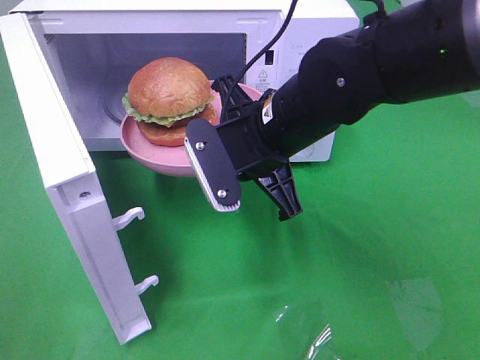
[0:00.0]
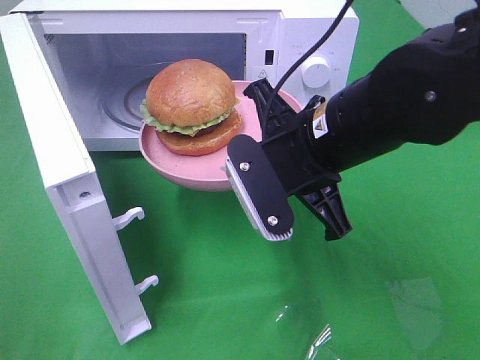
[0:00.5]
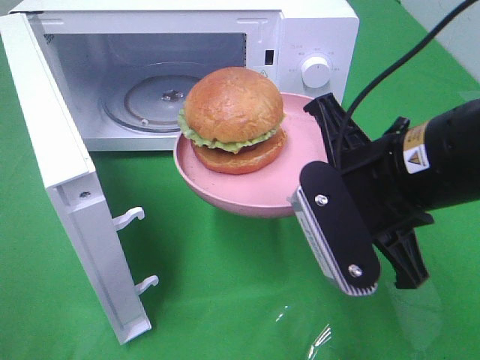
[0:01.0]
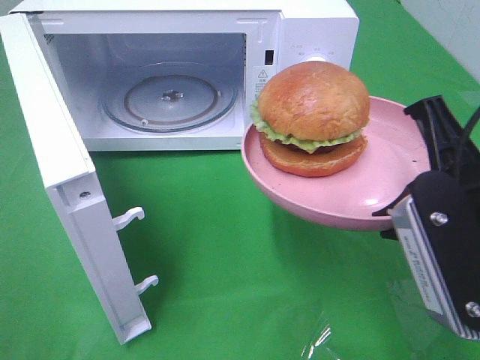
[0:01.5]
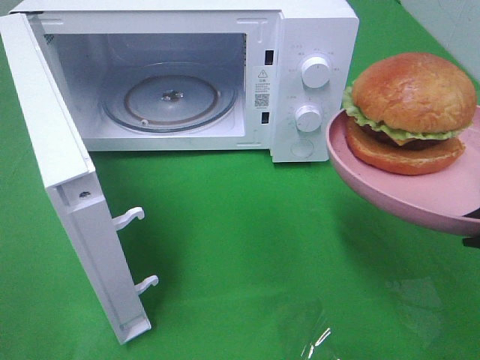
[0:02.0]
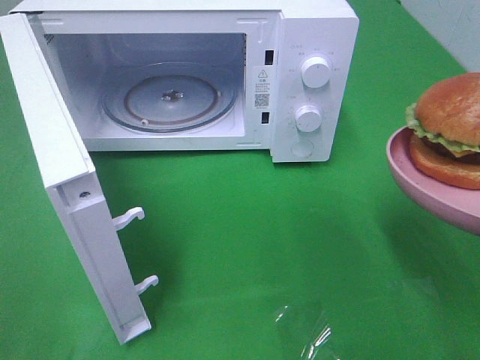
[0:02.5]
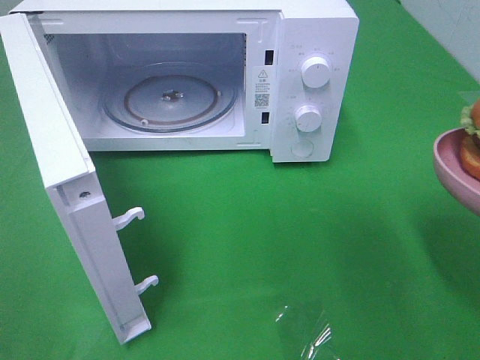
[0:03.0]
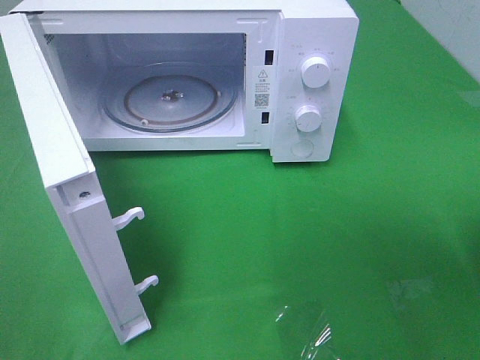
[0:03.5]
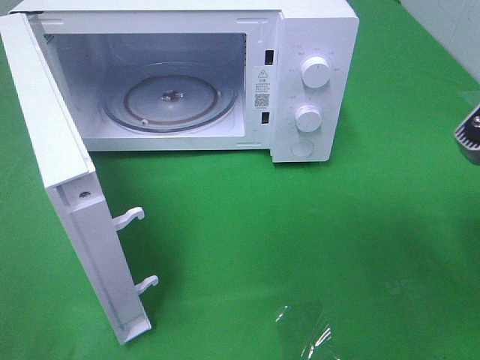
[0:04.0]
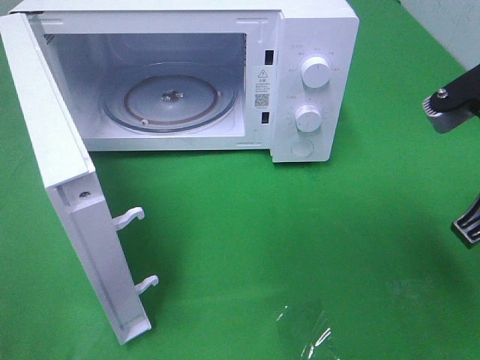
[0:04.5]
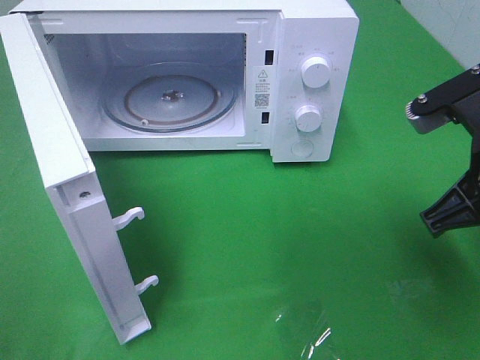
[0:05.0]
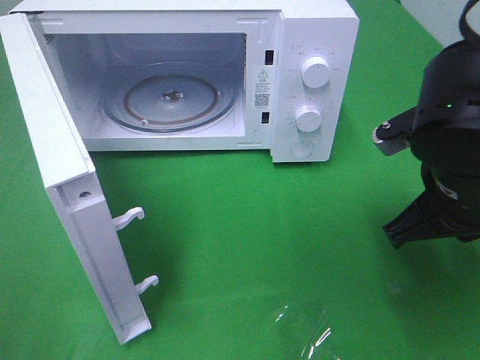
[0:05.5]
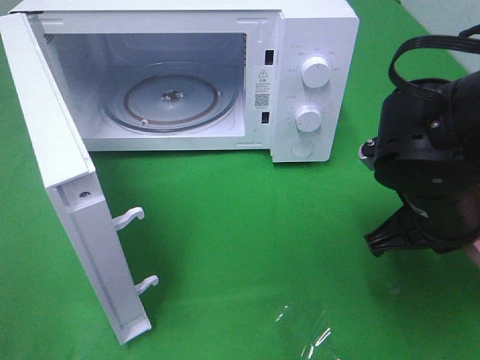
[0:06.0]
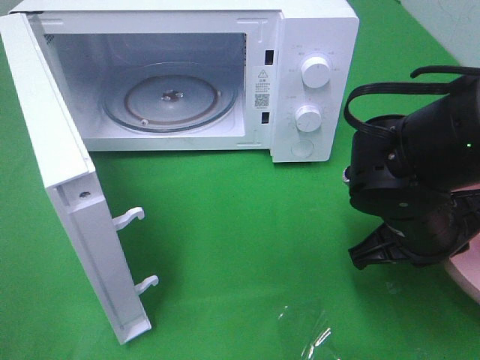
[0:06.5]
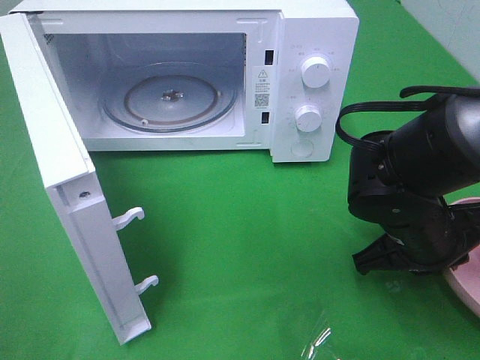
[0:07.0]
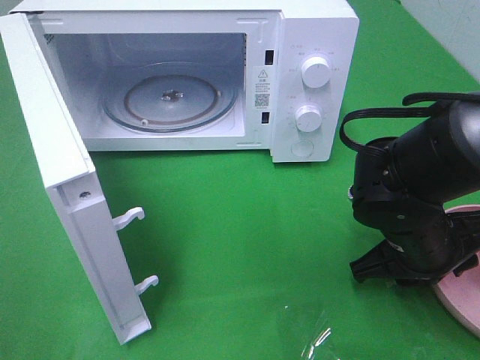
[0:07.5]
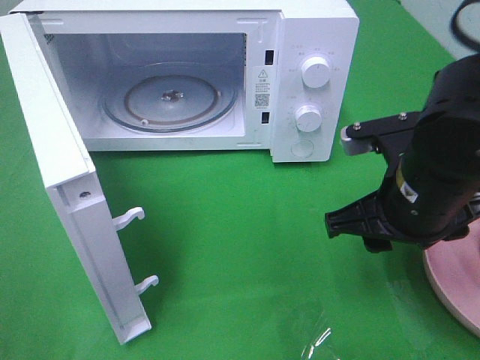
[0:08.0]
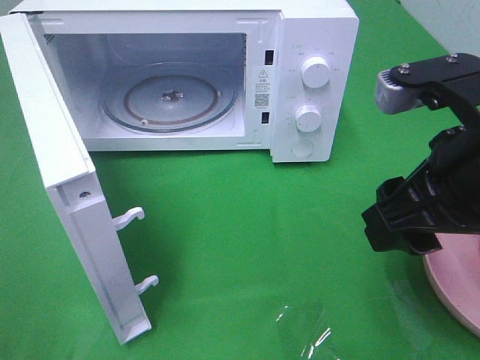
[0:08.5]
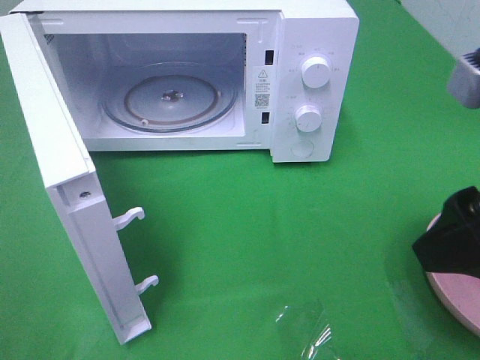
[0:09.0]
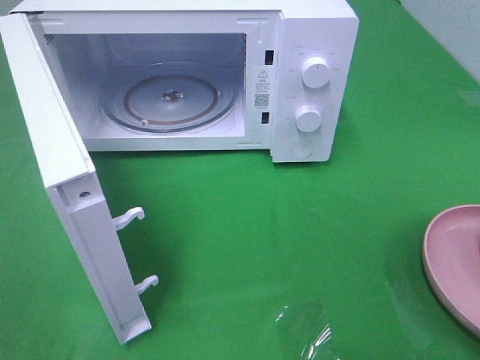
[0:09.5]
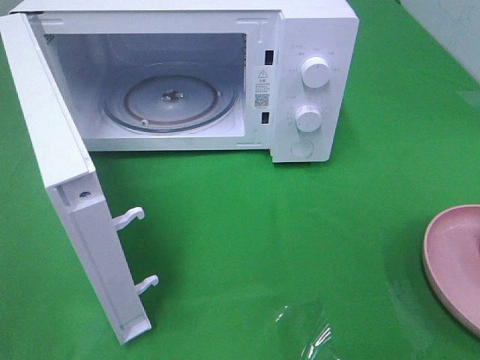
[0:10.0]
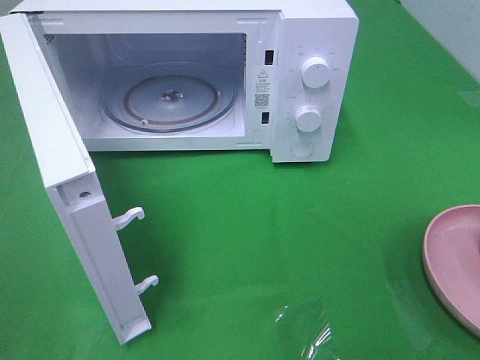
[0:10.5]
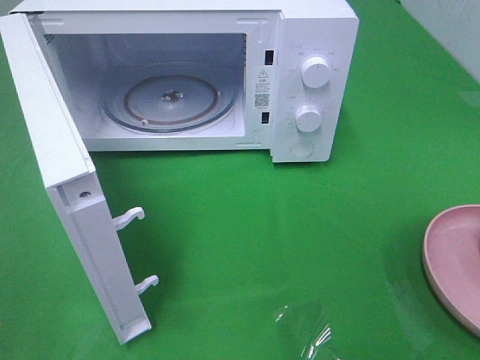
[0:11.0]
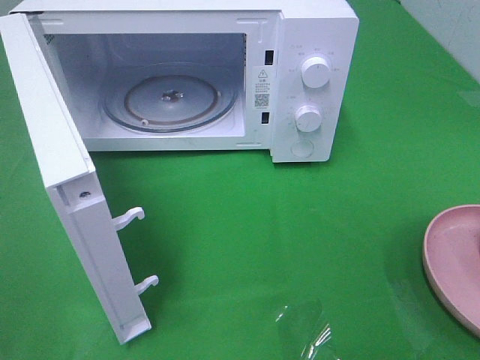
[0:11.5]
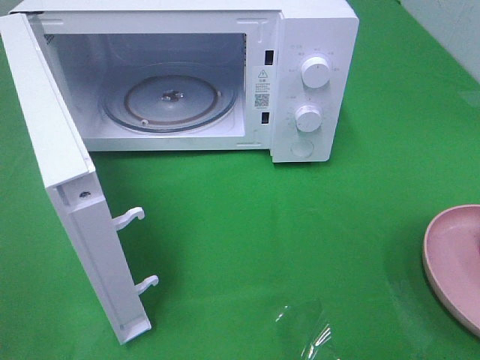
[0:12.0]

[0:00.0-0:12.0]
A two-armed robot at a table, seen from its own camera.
Task of the whole recording: Heat the burger.
Step, 0:00.0 to 0:08.0: Right hand: place the plate on the table.
0:00.0 to 0:02.0: The right gripper travels to the right, backward and upward by some 25 cm.
0:04.0 to 0:06.0: The right gripper is displaced downward, forward and to the left by some 15 cm.
0:06.0 to 0:08.0: The right gripper goes downward and returns, roughly 5 cm each way, and opens its fingers.
0:08.0 to 0:10.0: The right gripper shifts about 25 cm backward, to the right and upward.

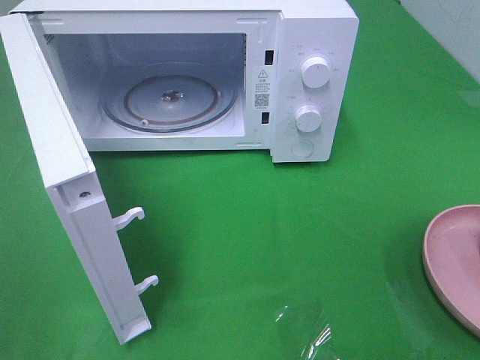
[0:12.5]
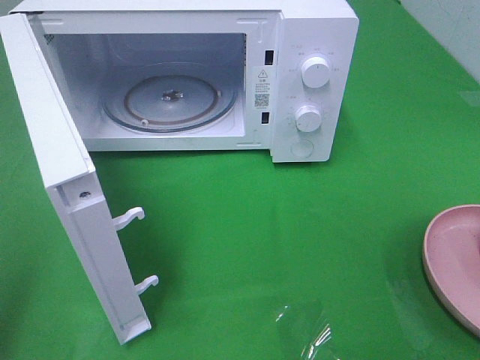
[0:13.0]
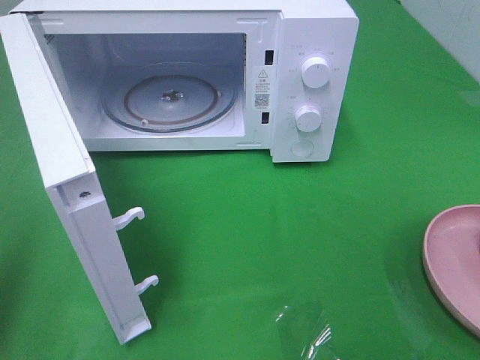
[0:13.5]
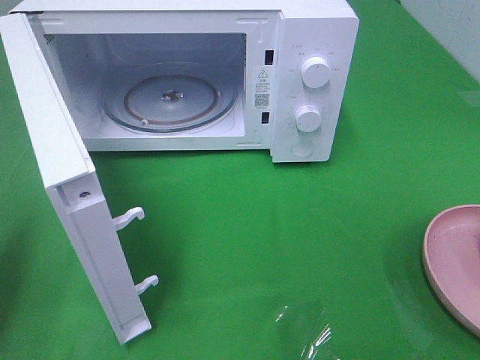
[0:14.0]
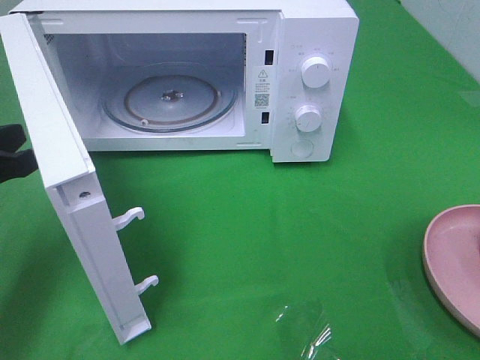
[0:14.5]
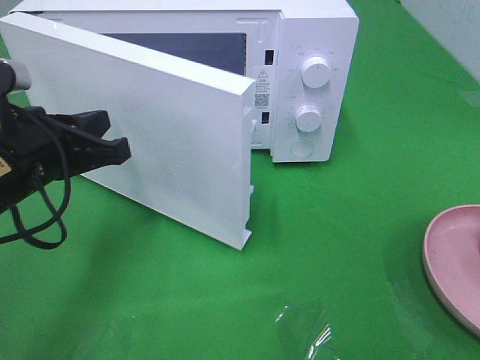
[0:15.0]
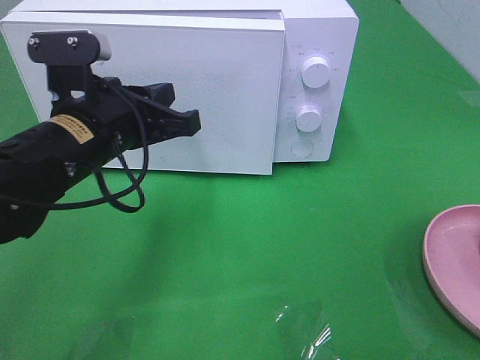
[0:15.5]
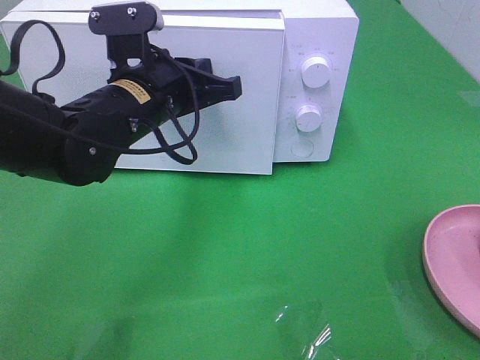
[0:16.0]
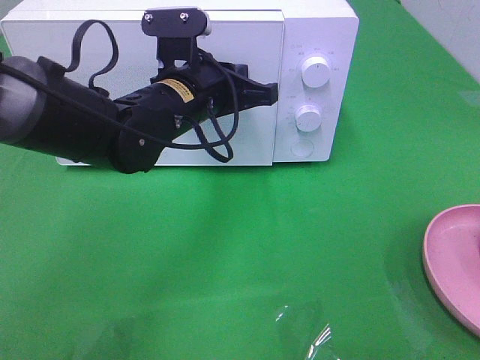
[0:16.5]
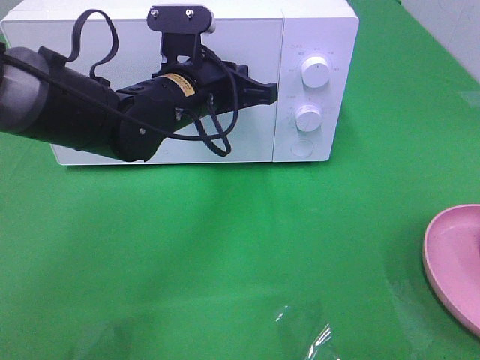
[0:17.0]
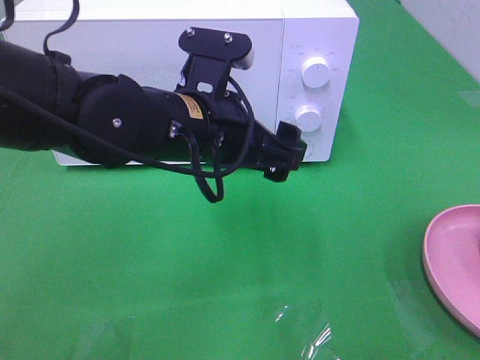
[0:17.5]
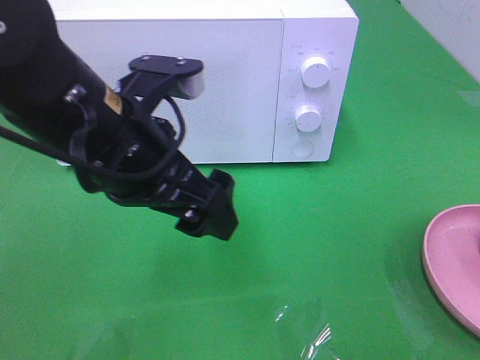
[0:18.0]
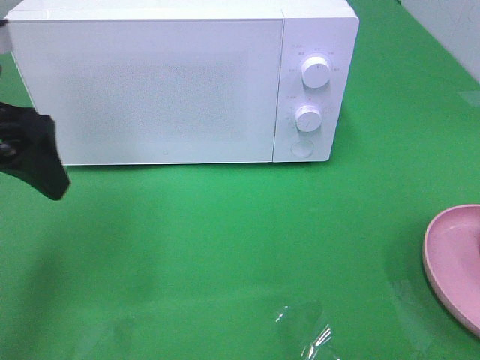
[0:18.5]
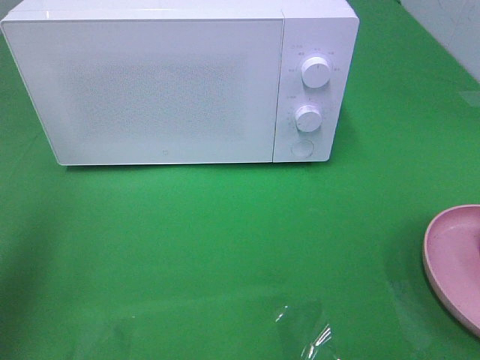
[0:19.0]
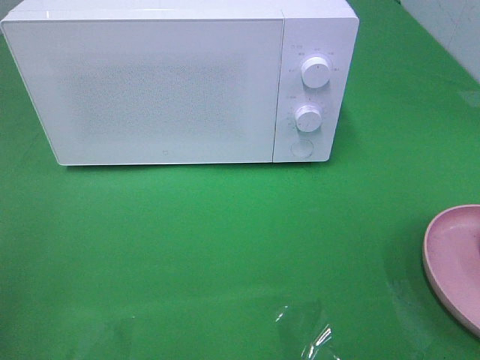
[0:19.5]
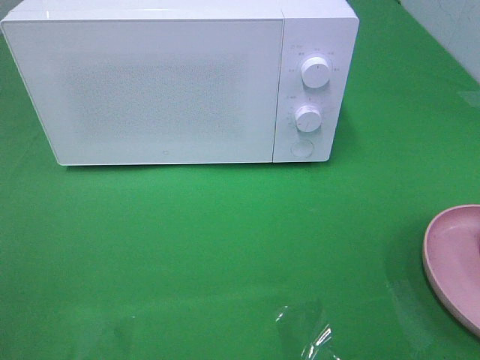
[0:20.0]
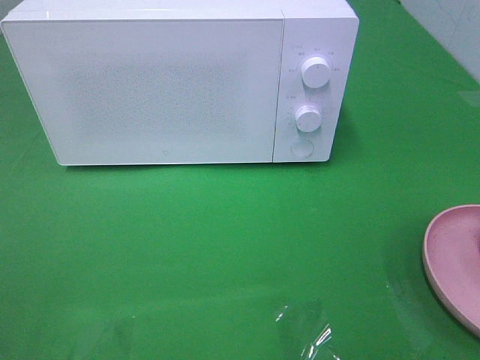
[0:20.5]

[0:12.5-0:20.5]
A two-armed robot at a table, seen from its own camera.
Task of the whole recording: Heat the burger.
0:12.5 to 0:14.5: The left gripper shifts about 25 cm forward and downward, and closes.
0:14.5 to 0:16.5: The left gripper goes approximately 25 cm to the right and forward.
0:16.5 to 0:18.5: The left gripper travels to the left, upward and backward by some 25 cm, and opens up.
0:18.5 to 0:20.5: The left gripper heads backward, covering roughly 25 cm.

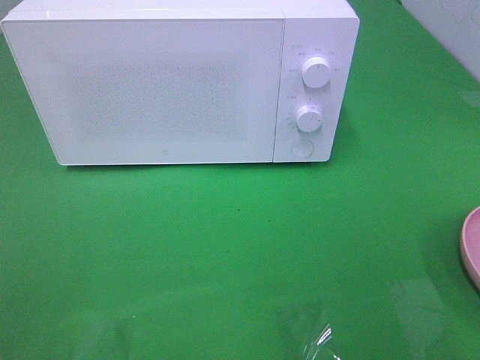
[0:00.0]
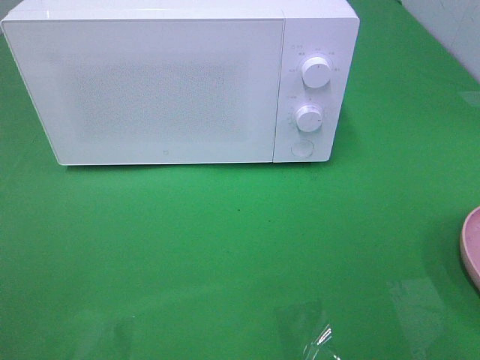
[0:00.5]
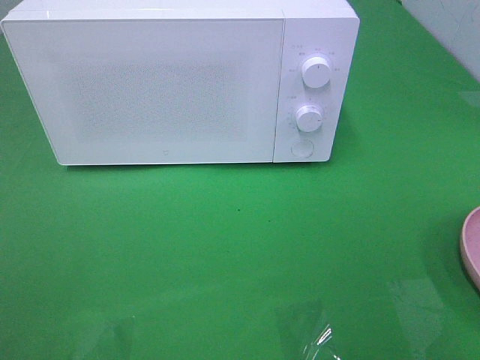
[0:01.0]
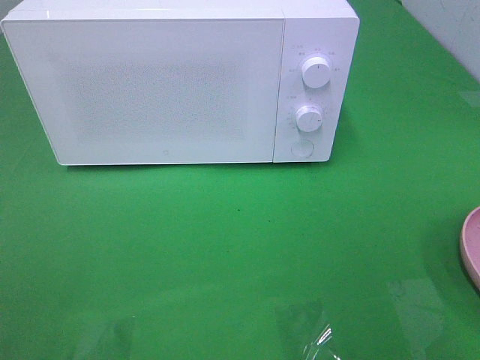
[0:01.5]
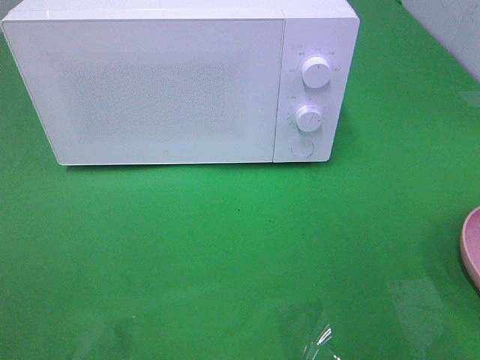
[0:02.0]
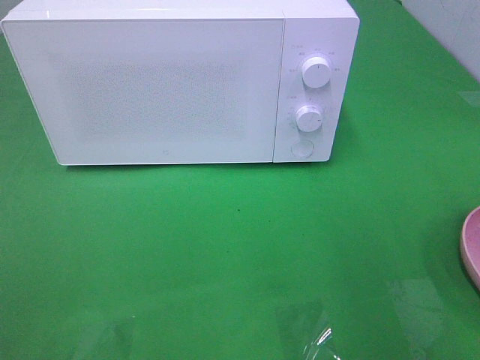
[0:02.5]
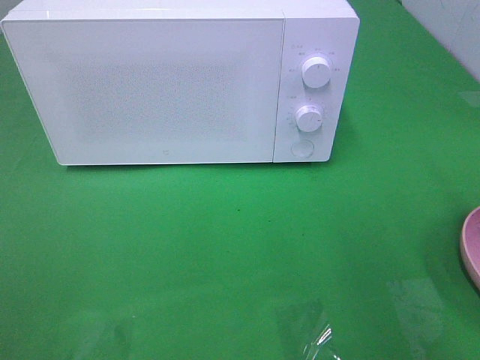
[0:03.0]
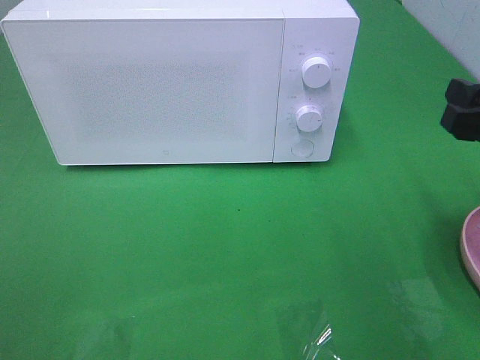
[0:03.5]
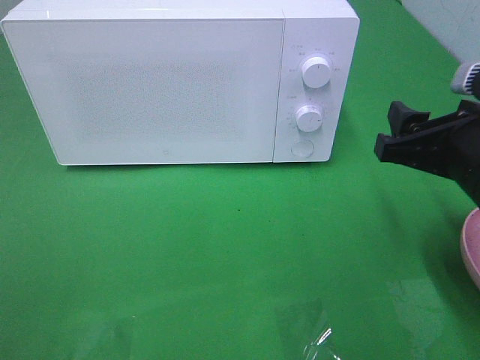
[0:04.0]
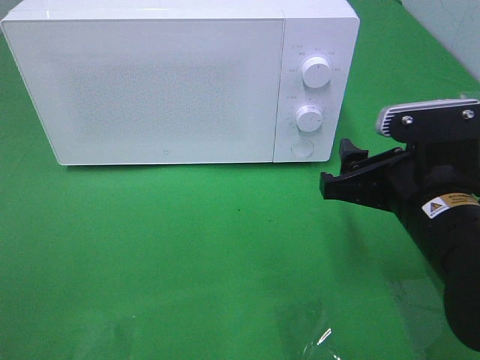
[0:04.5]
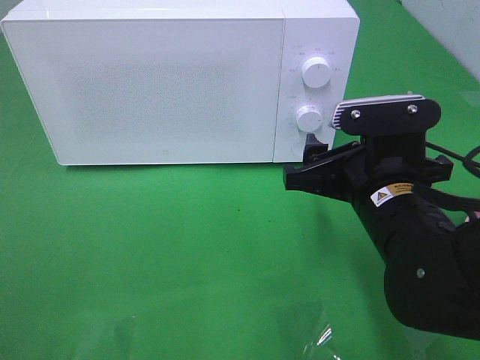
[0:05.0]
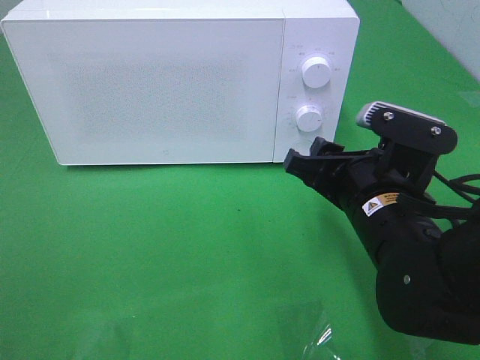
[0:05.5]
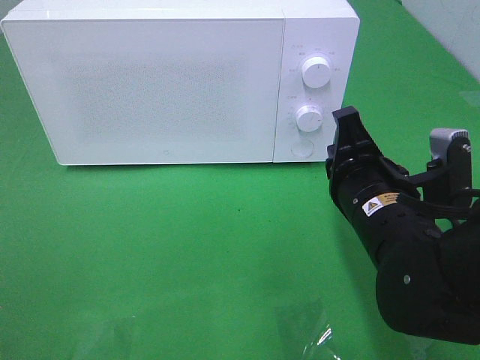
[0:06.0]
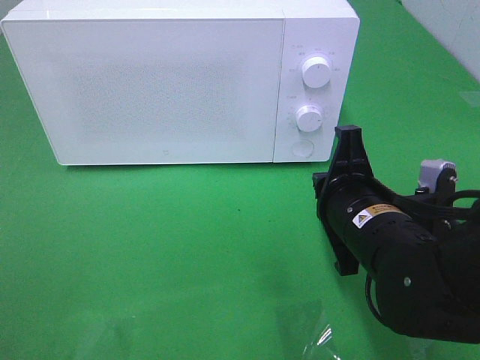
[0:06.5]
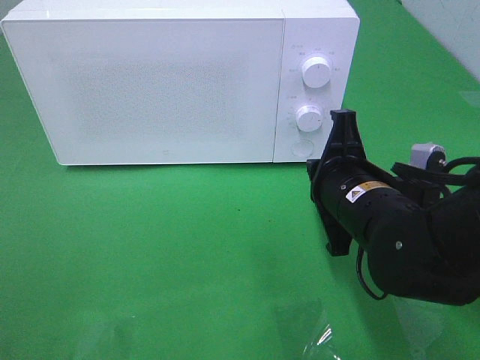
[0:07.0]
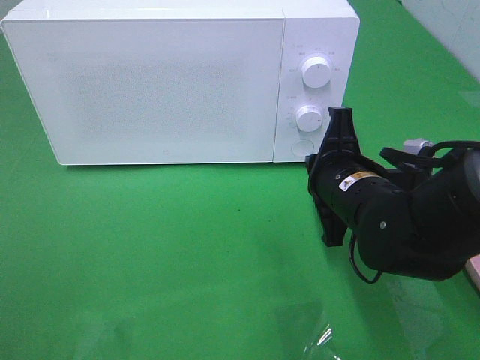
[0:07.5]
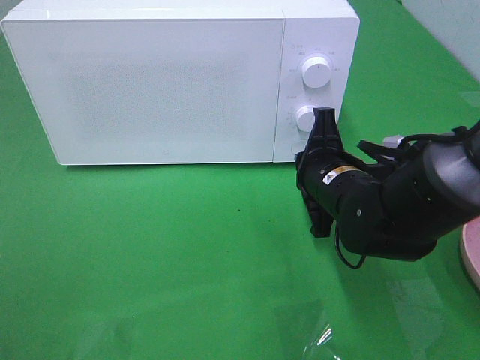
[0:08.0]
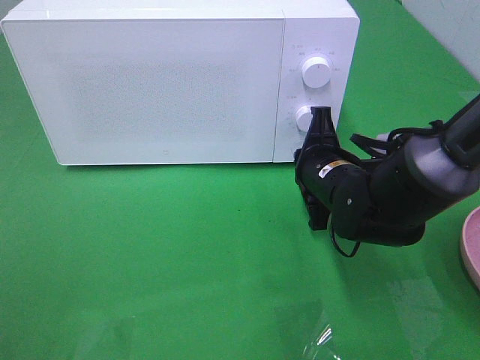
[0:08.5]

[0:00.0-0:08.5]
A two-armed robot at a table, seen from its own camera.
Task of the whole recording: Heat the burger.
0:02.0 to 0:04.0: The right gripper moves downward, forward and to the left, approximately 15 cm.
0:04.0 to 0:06.5: The right gripper heads to the left and downward, covering some 10 cm, and closes.
0:06.5 to 0:08.5: The right gripper travels forward by approximately 10 cm.
